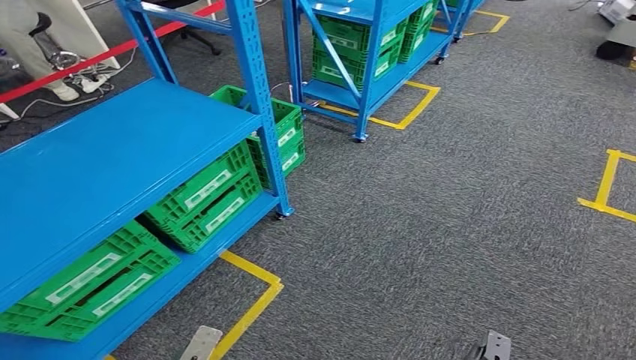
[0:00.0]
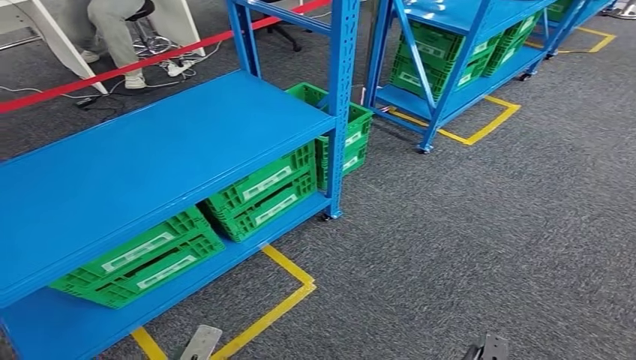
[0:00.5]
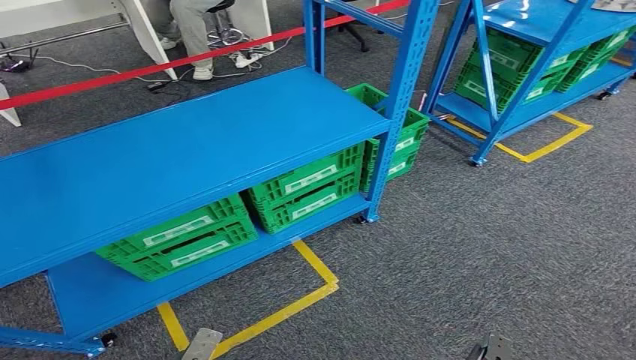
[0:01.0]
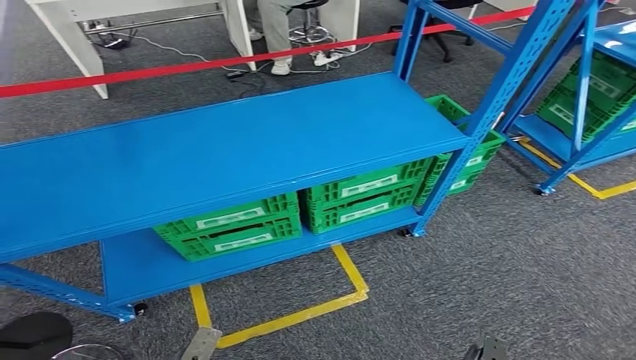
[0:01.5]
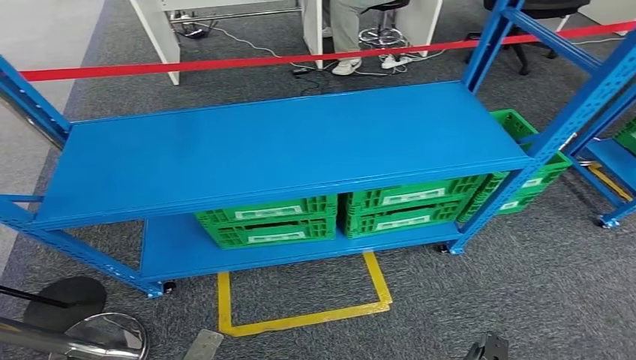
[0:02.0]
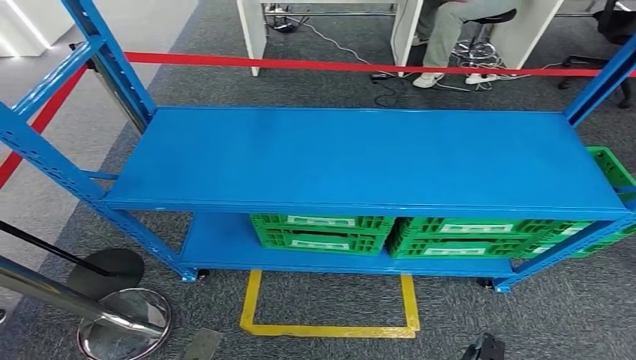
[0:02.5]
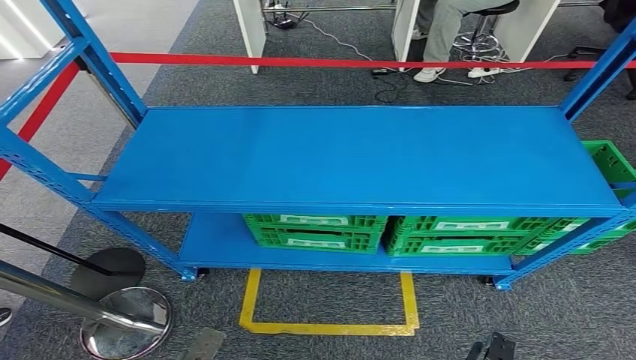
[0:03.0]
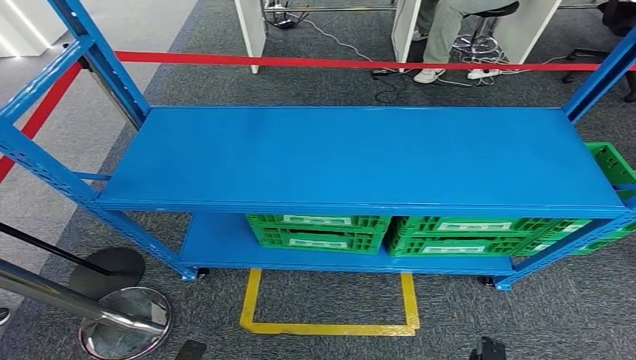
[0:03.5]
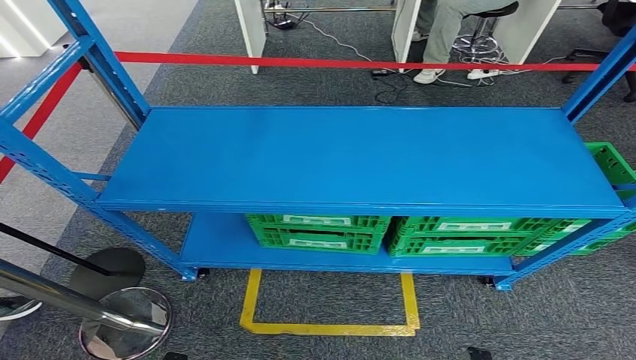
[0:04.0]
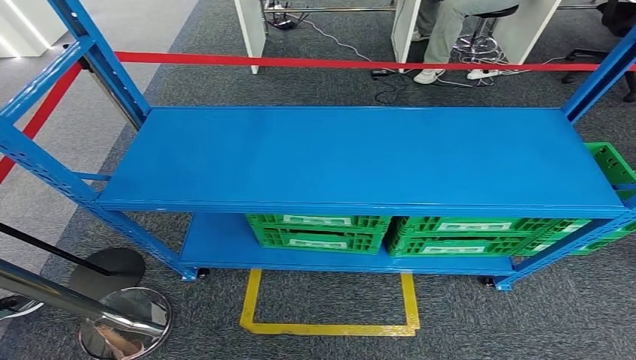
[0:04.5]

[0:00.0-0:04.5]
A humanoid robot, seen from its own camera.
Step, 0:00.0 to 0:04.5: Move to the initial position at the workbench.

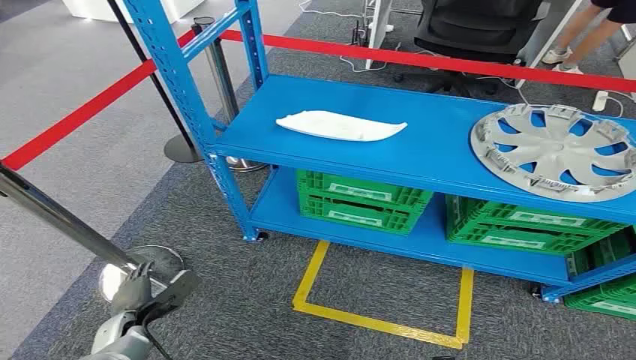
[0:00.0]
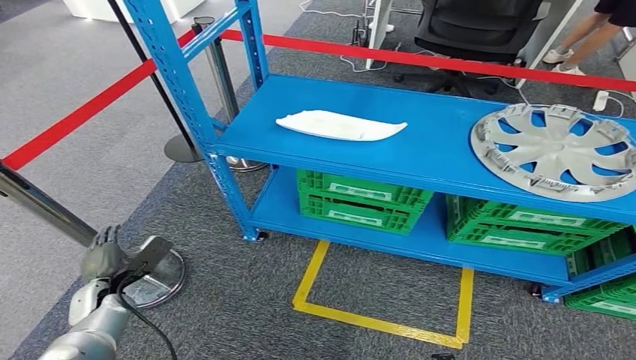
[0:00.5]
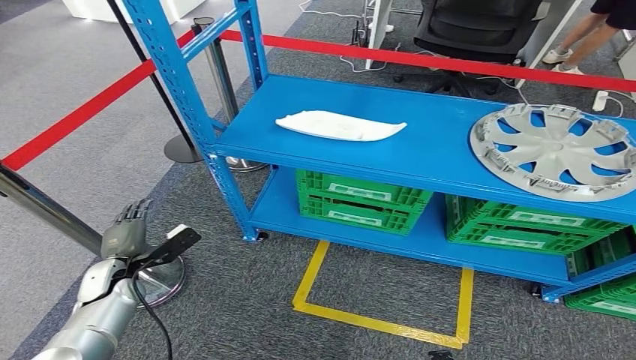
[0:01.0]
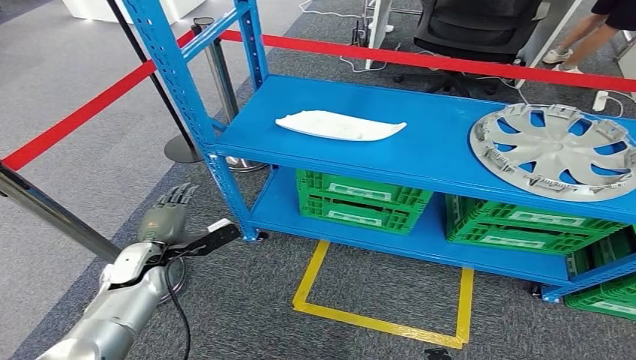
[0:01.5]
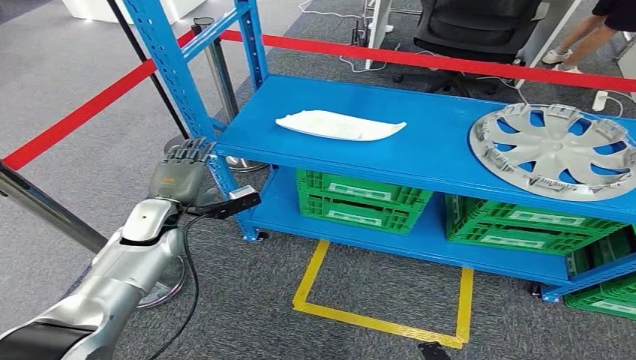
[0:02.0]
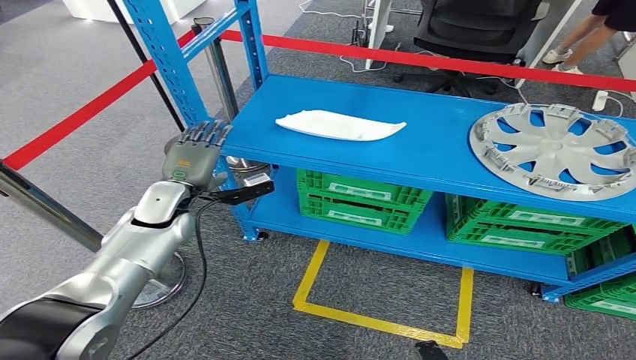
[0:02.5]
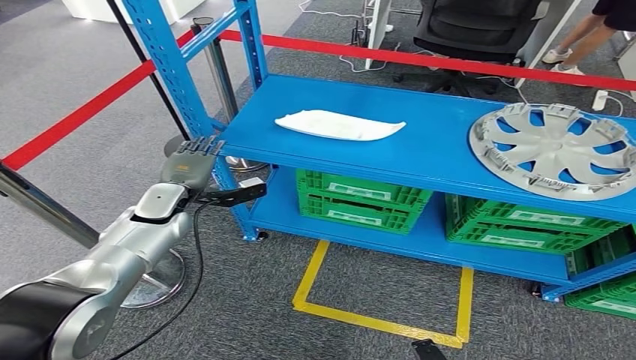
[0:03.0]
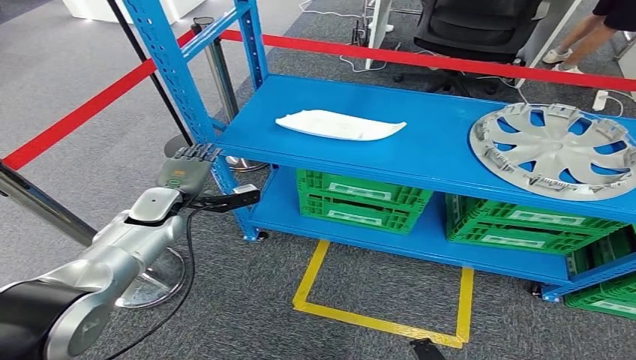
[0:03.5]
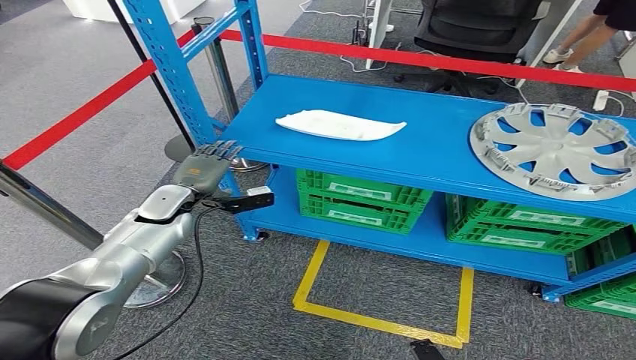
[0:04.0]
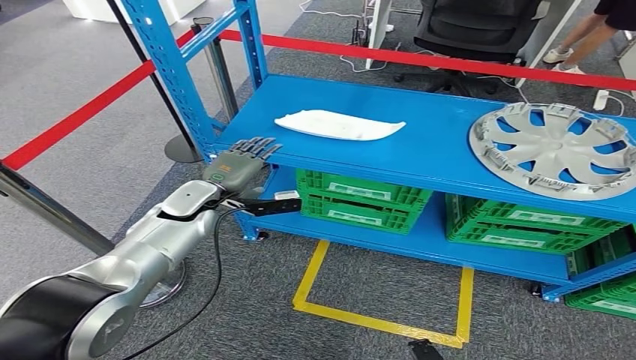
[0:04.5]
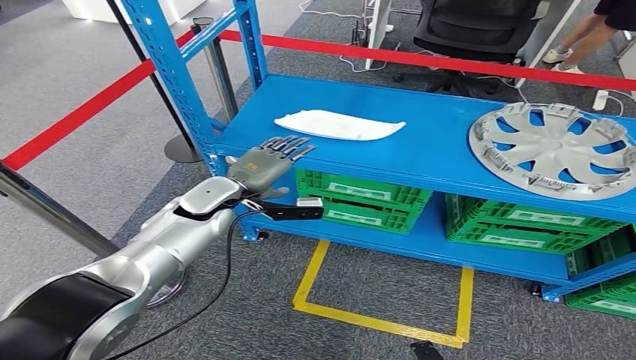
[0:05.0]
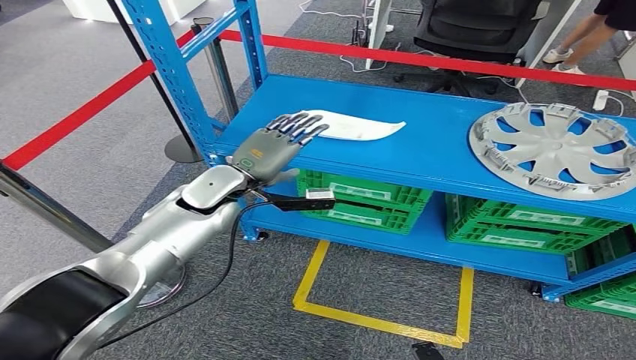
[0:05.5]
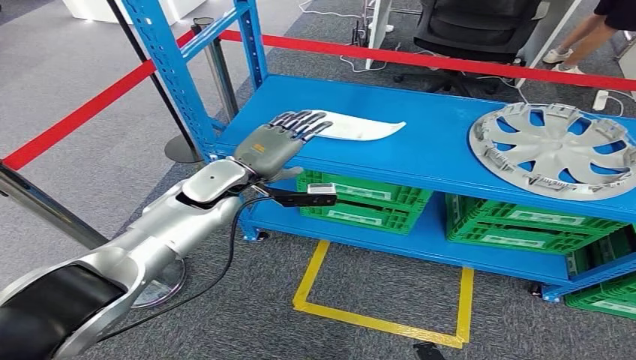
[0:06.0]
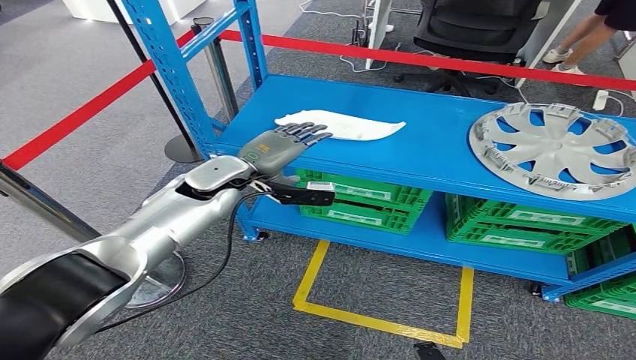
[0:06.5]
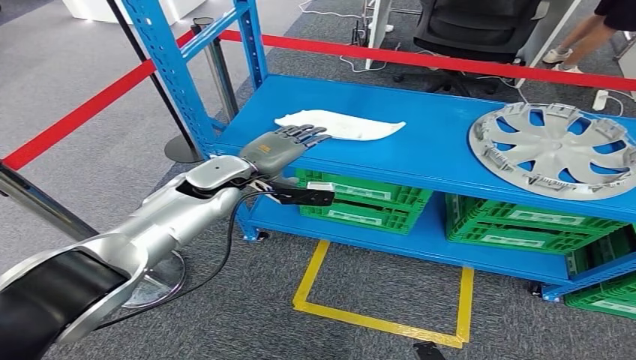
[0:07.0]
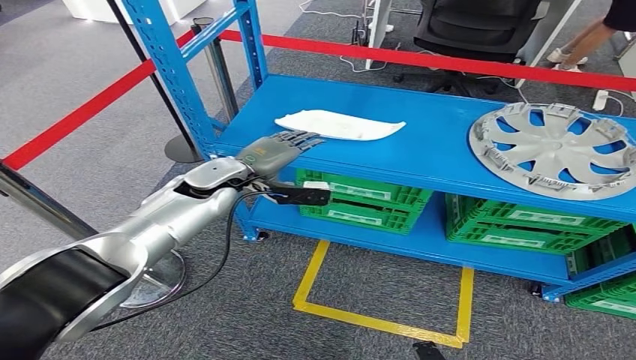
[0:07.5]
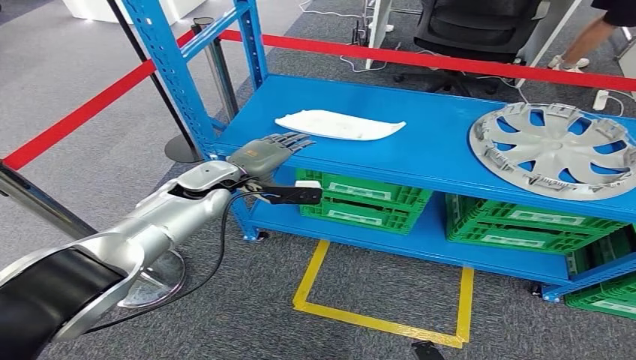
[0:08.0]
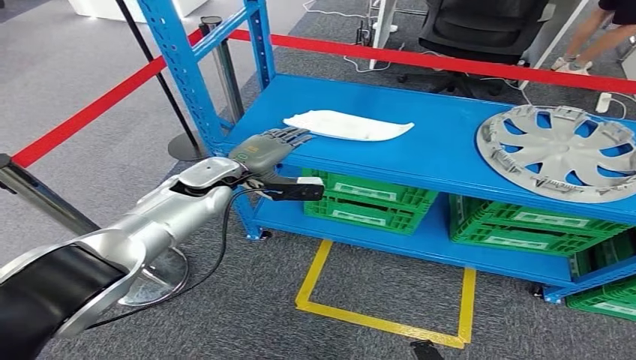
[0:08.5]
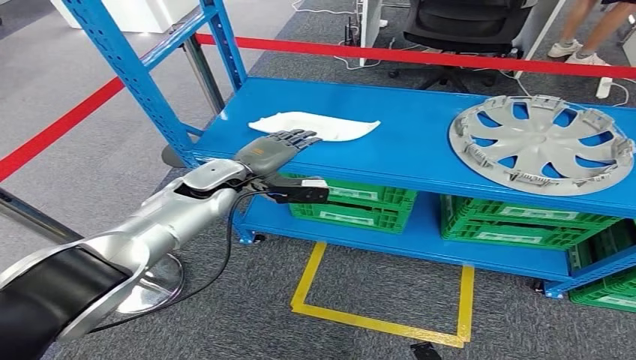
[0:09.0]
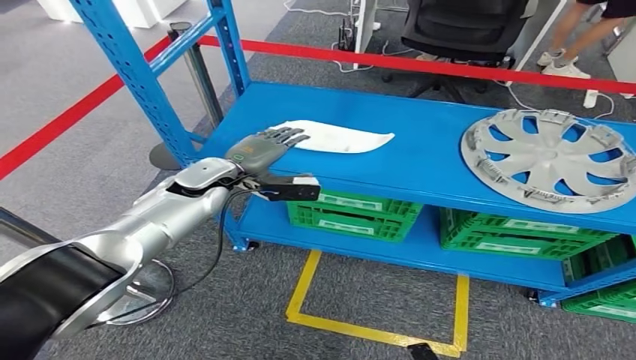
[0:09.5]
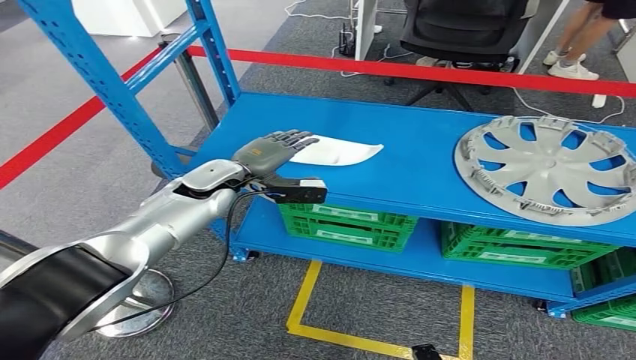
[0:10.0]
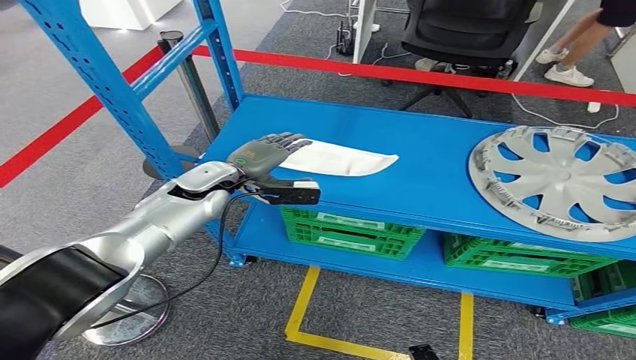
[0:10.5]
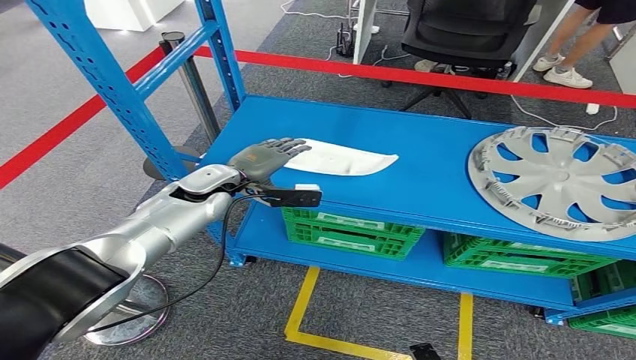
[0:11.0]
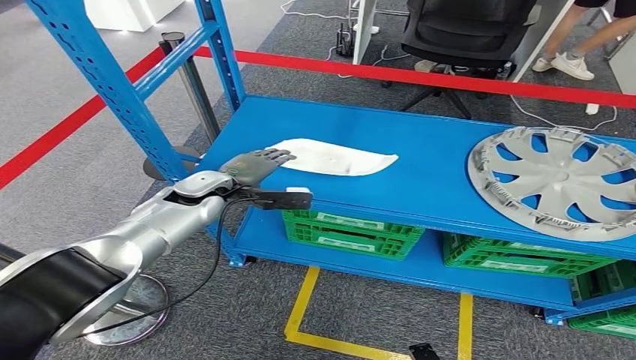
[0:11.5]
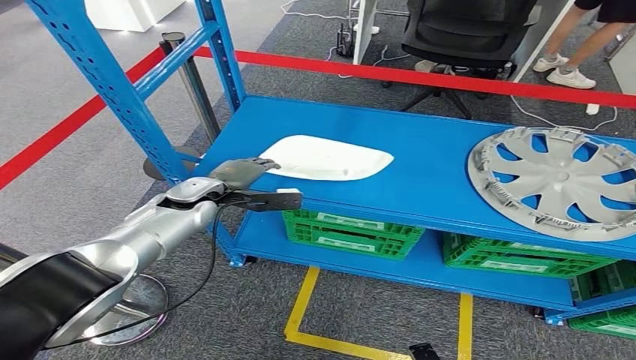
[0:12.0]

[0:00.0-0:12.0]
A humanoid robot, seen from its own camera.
0:02.0 to 0:04.0: The hands stay close to where they were, moving slightly.
0:04.0 to 0:06.0: The left hand travels to the right and upward by some 10 cm.

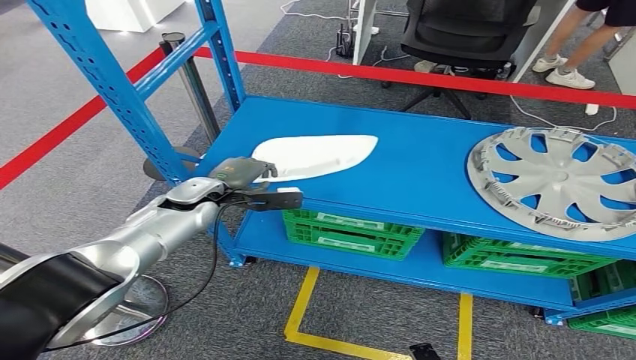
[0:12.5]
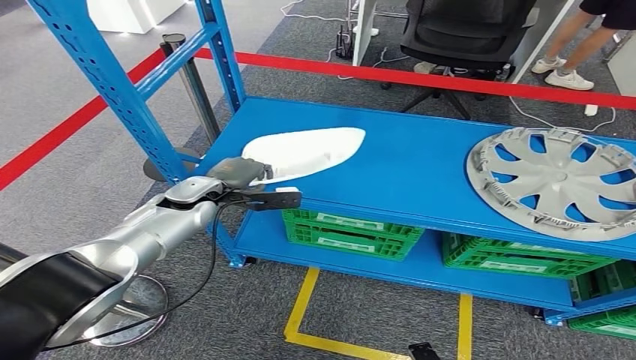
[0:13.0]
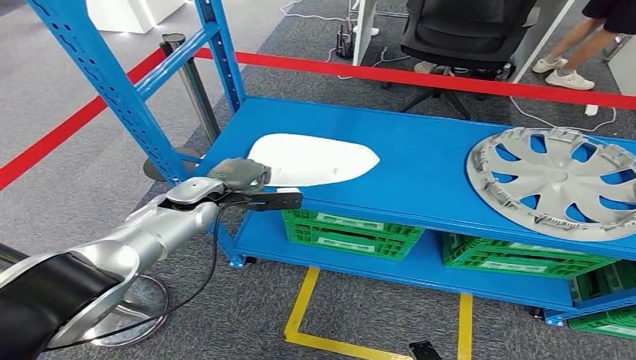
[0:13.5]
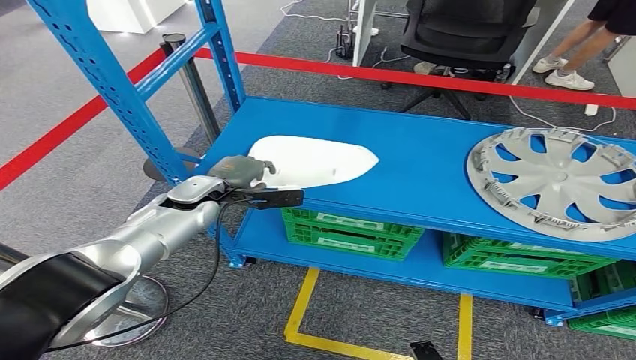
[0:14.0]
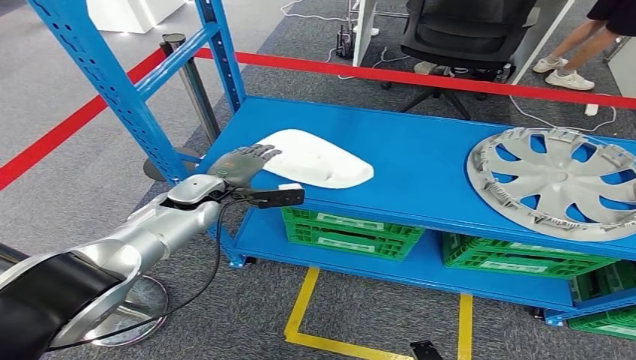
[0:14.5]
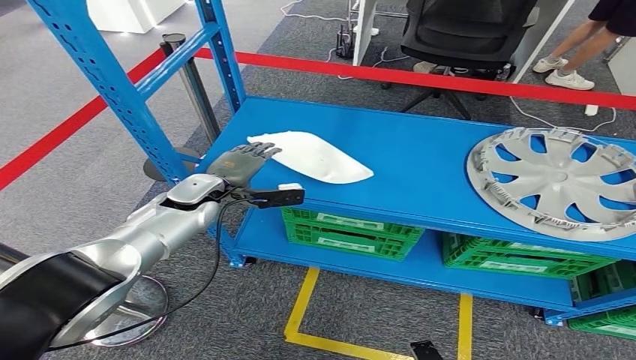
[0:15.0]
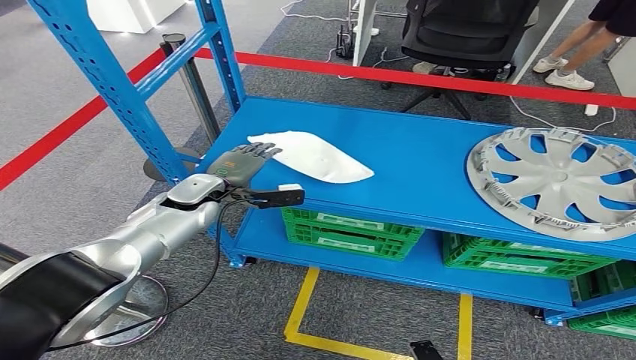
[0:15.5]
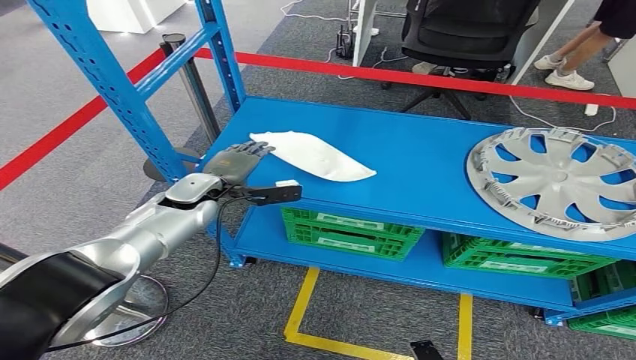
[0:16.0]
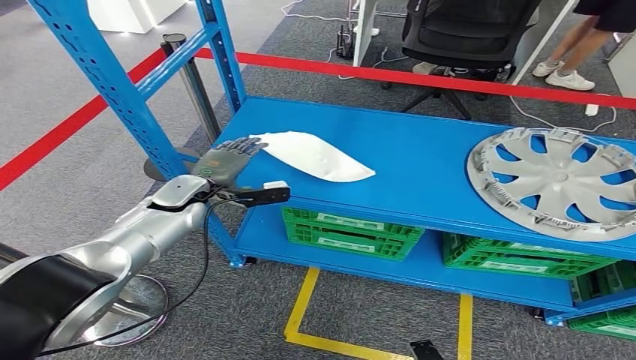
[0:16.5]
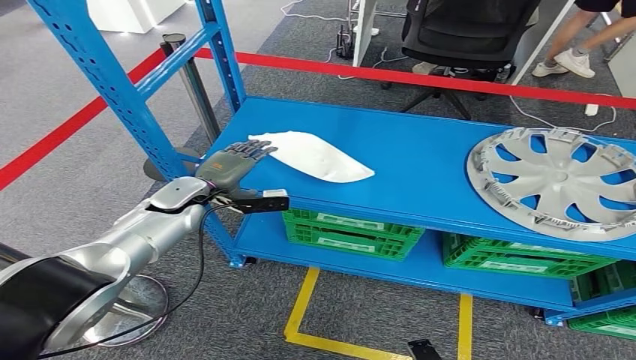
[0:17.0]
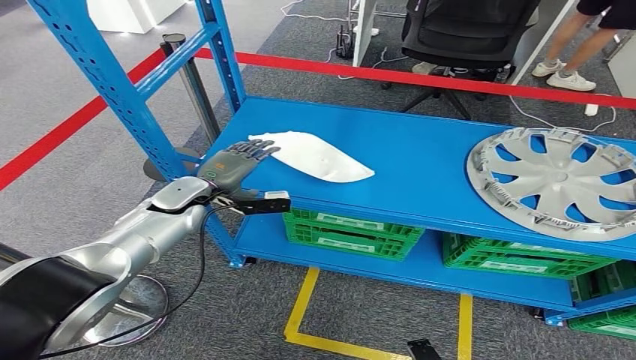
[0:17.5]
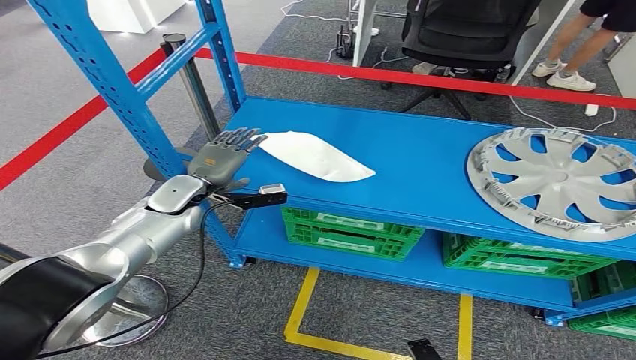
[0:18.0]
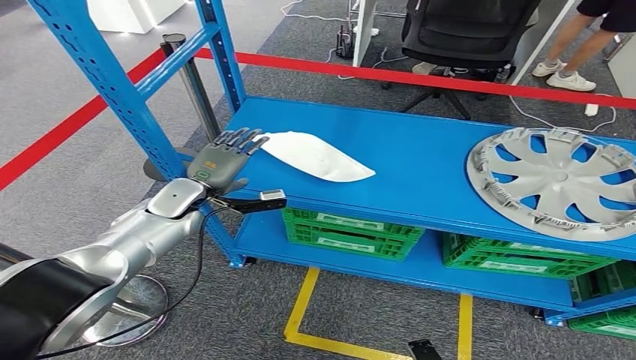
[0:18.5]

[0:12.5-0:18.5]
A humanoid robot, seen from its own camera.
0:12.5 to 0:16.5: There are only small adjustments of the hands.
0:16.5 to 0:18.5: The hands stay close to where they were, moving slightly.
